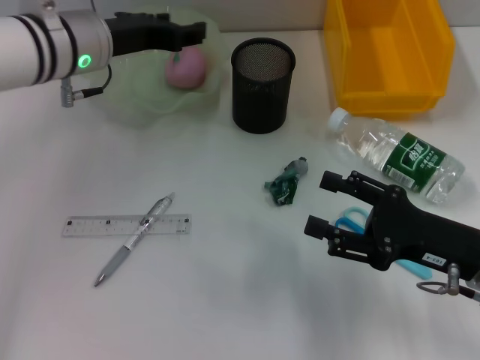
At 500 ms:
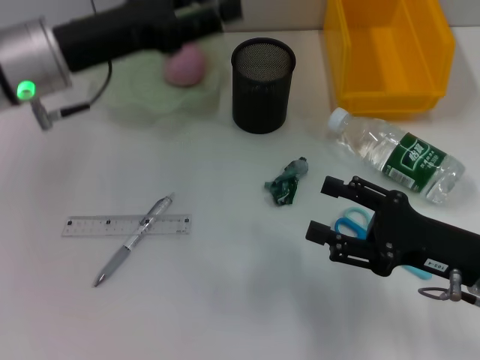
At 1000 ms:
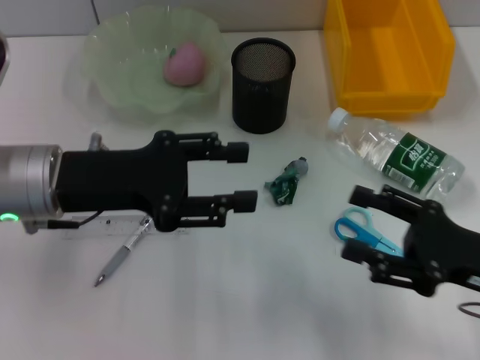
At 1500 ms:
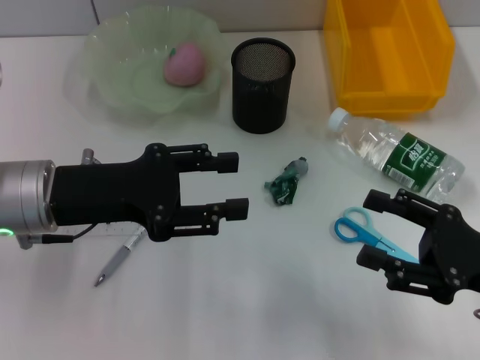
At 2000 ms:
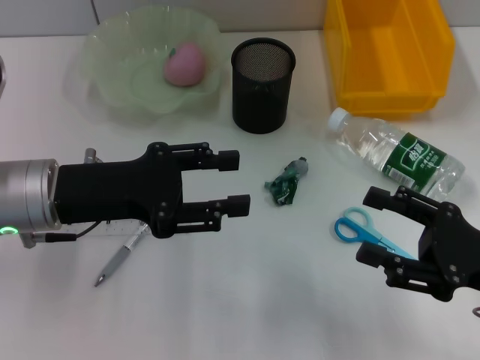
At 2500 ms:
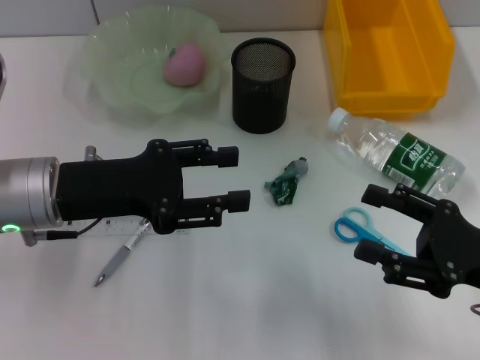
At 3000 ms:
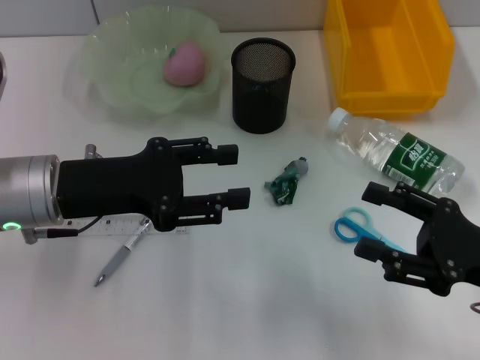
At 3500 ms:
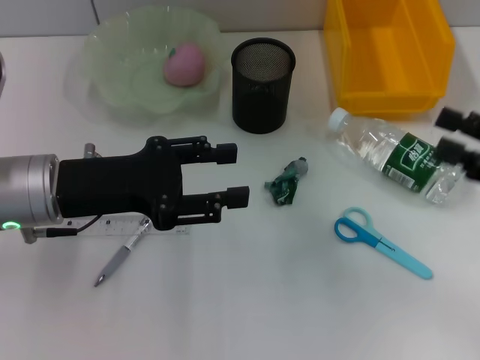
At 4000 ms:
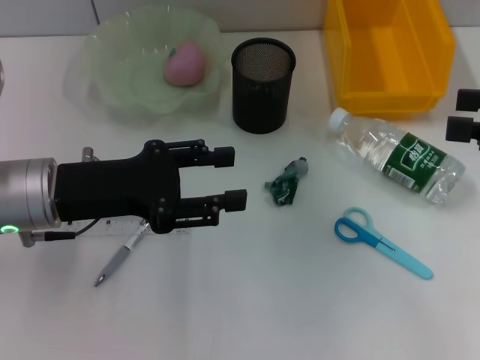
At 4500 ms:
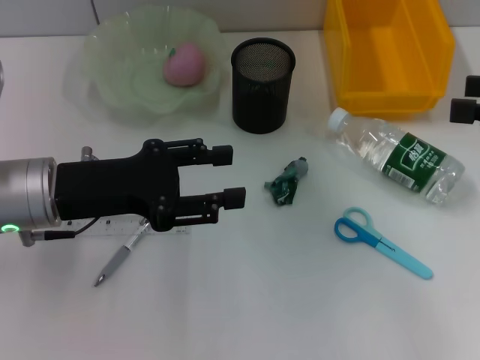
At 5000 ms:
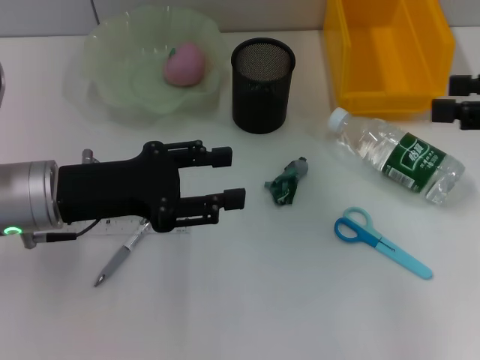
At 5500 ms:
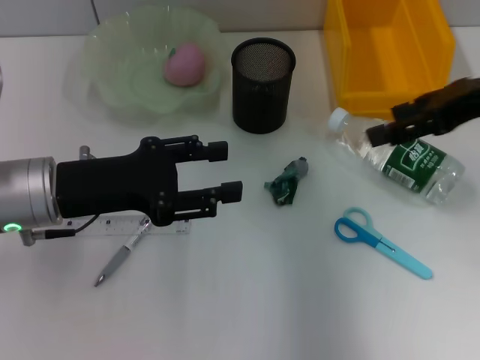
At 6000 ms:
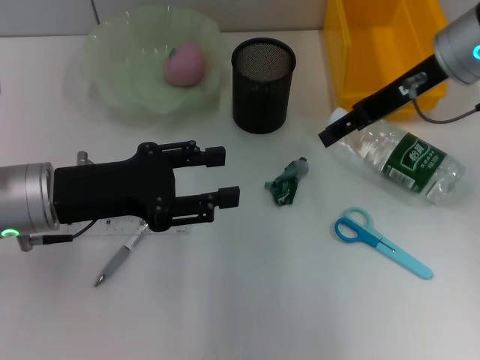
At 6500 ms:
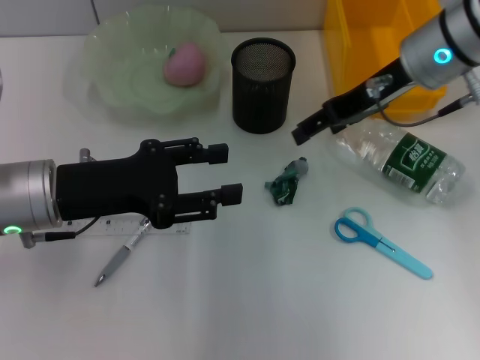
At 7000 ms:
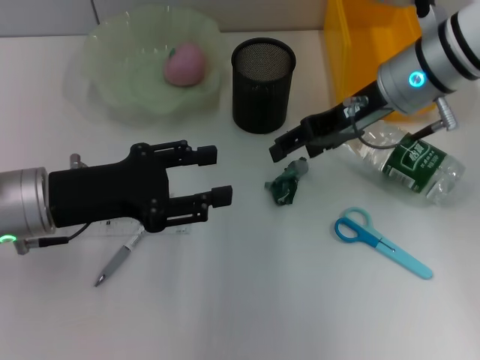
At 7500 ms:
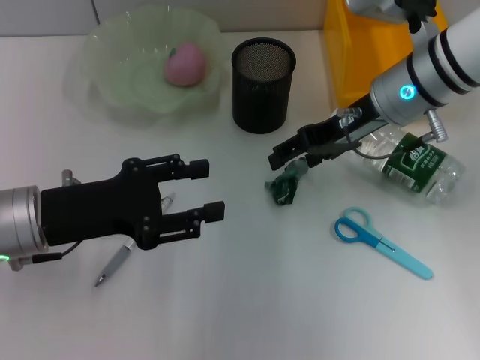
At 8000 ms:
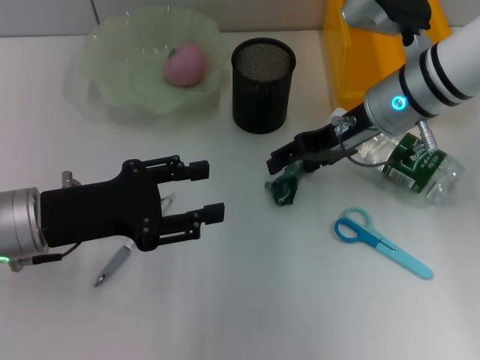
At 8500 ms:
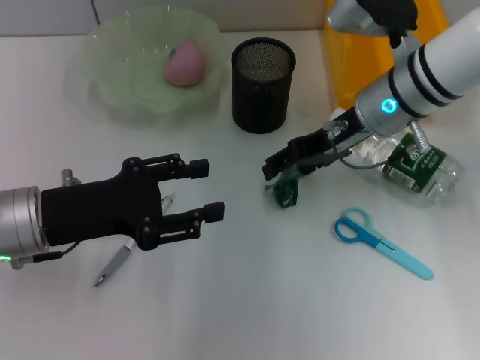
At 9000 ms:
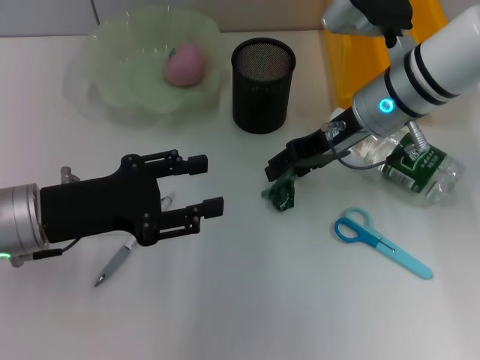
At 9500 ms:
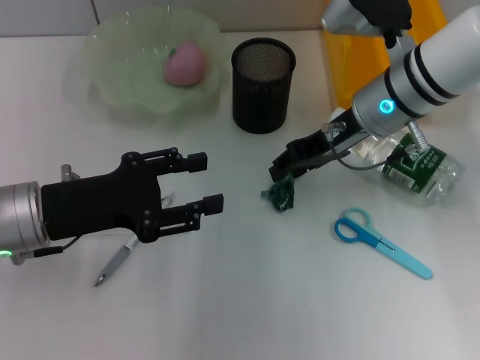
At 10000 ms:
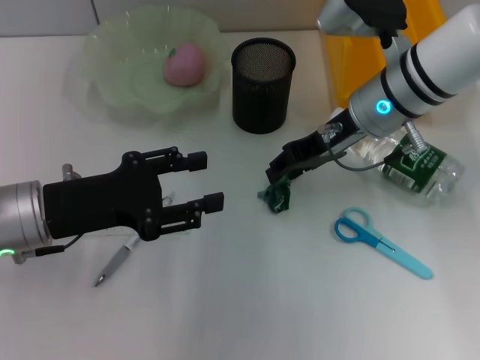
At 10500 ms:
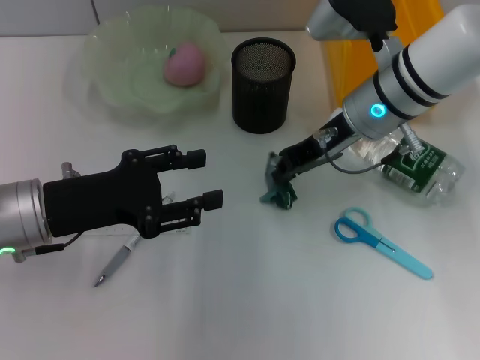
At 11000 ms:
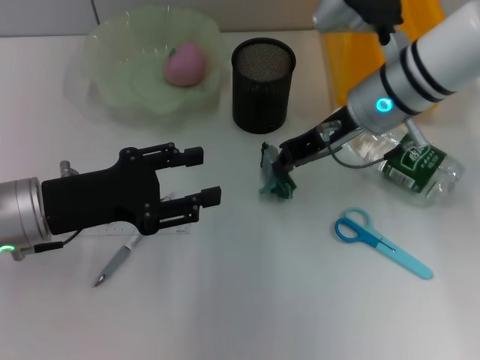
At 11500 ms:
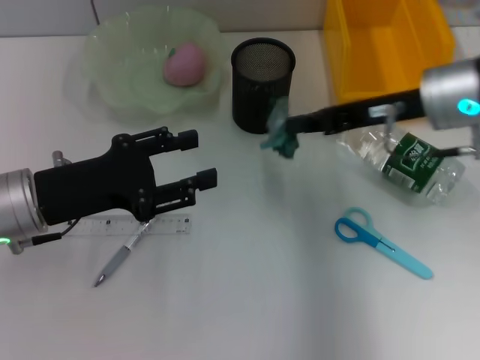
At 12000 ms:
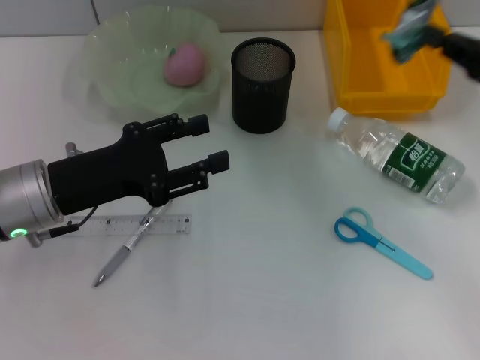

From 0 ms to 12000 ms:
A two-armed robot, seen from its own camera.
Step, from 0 ms to 9500 ms: Grab the plastic with the right hand.
From 0 ms to 2000 ms: The left gripper heads backward, covering about 10 cm.
From 2000 ms to 4000 ms: The right gripper shifts roughly 15 cm upward, forward and to the right.
From 4000 ms to 6000 ms: The right gripper is displaced to the left and forward by roughly 20 cm.
From 6000 ms to 8000 ms: The right gripper shifts approximately 5 cm downward.
From 8000 ms to 10000 ms: The right gripper closes its fingers.
From 10000 ms to 12000 ms: The right gripper goes approximately 20 cm to the right and backward, and closes.

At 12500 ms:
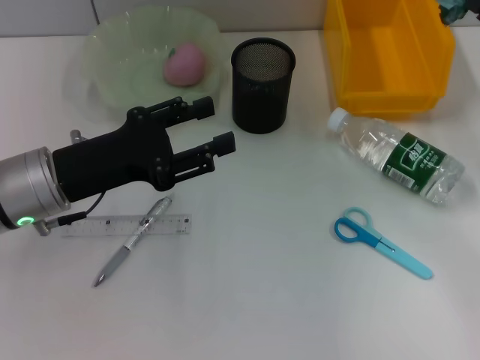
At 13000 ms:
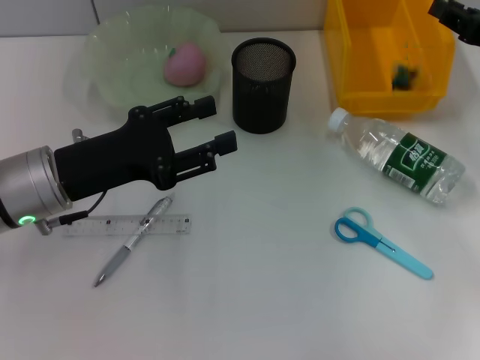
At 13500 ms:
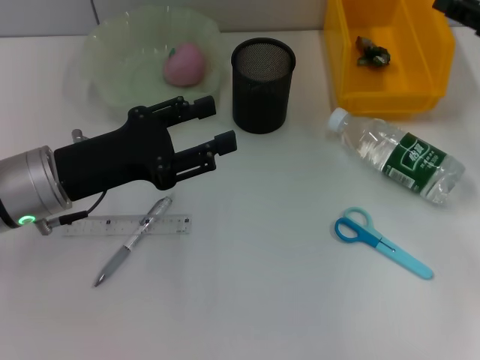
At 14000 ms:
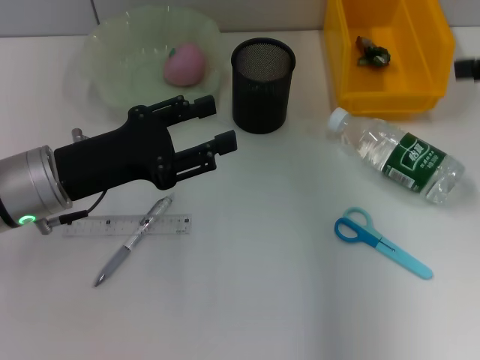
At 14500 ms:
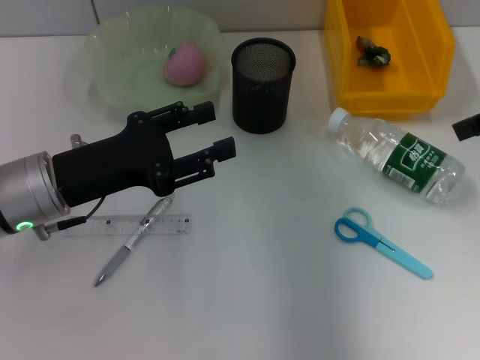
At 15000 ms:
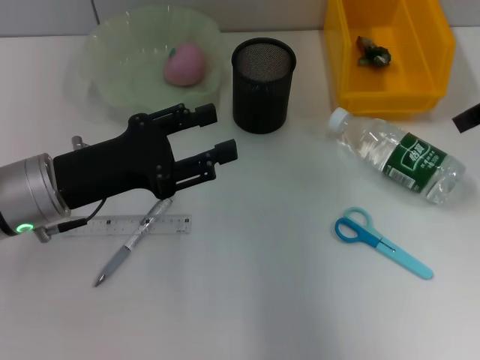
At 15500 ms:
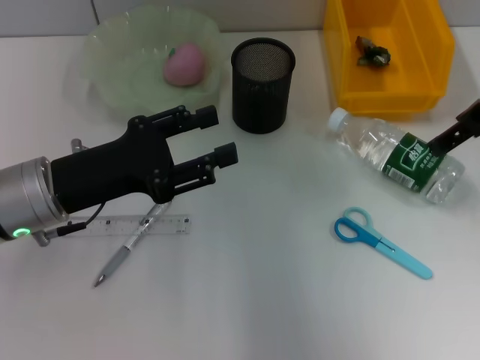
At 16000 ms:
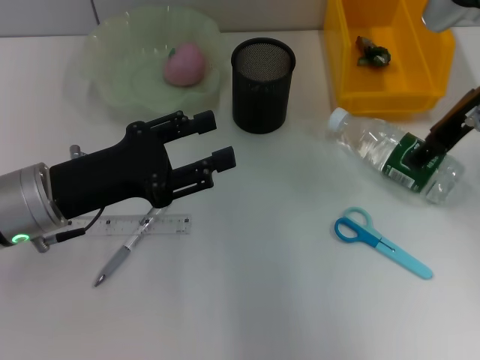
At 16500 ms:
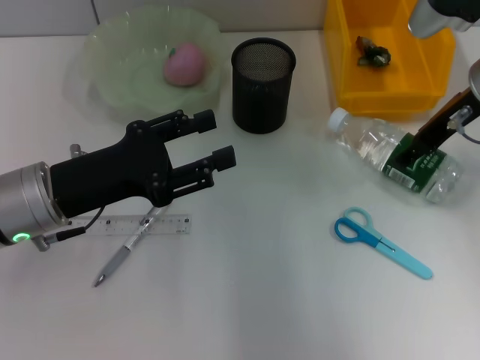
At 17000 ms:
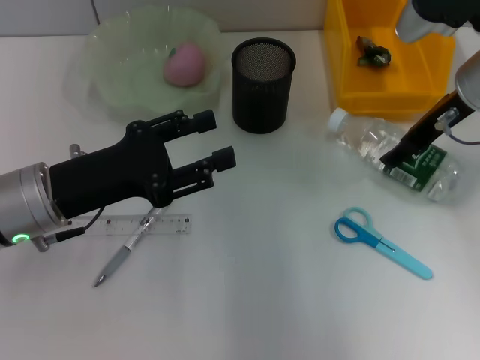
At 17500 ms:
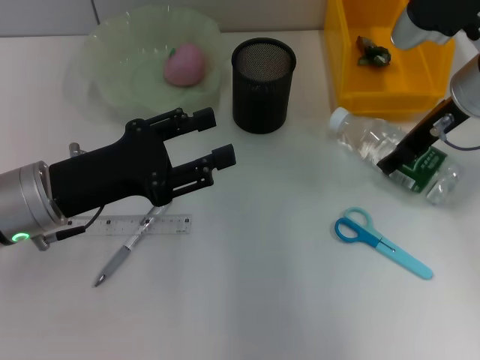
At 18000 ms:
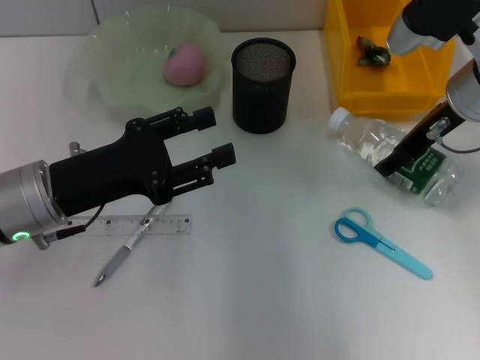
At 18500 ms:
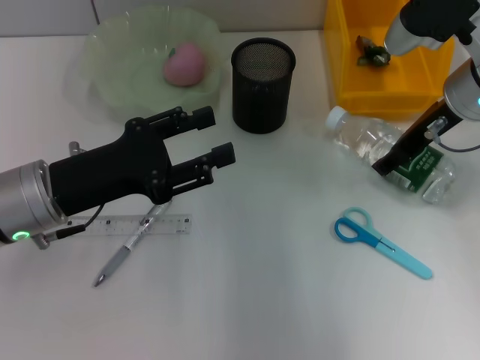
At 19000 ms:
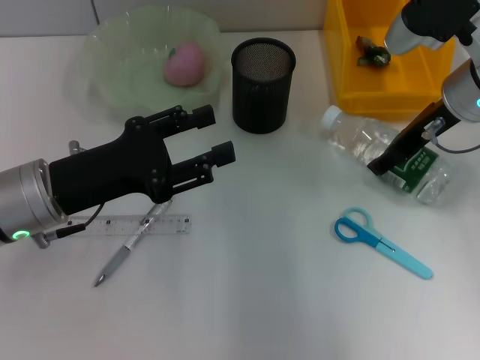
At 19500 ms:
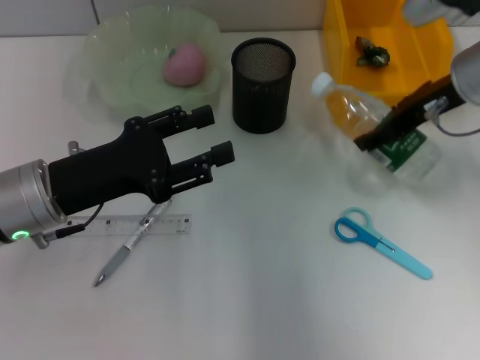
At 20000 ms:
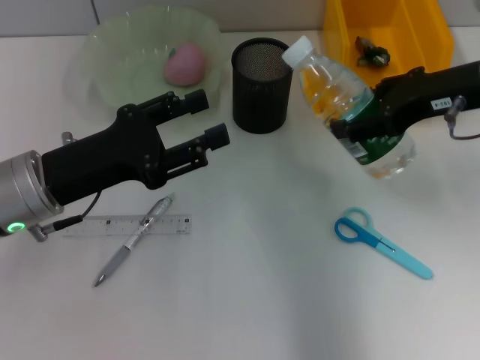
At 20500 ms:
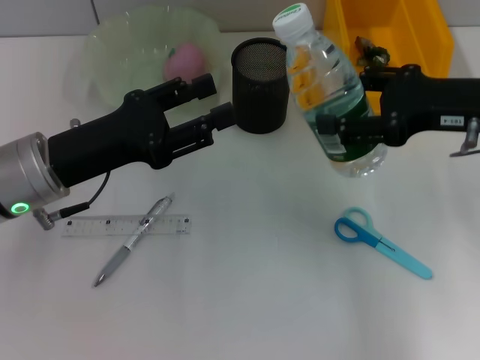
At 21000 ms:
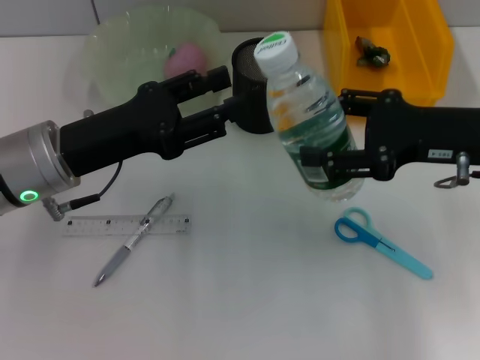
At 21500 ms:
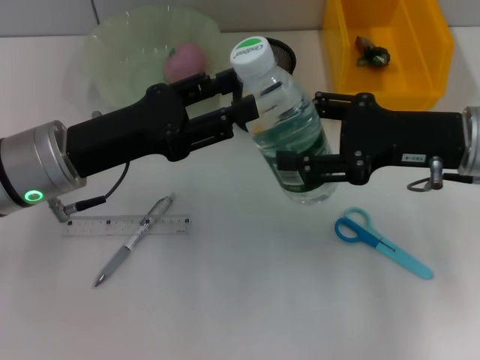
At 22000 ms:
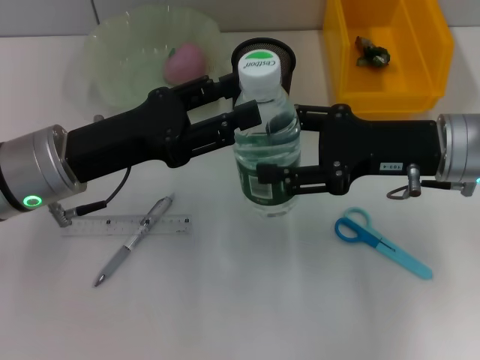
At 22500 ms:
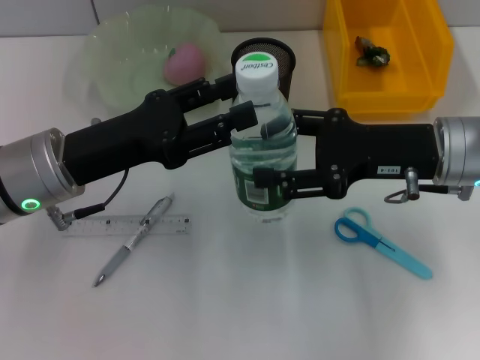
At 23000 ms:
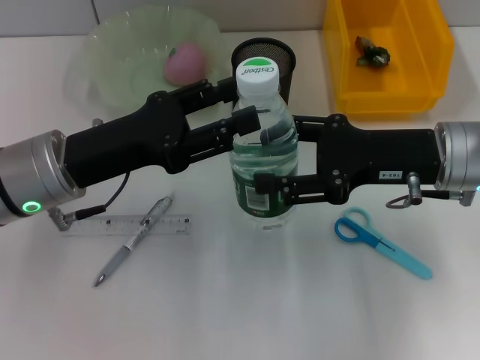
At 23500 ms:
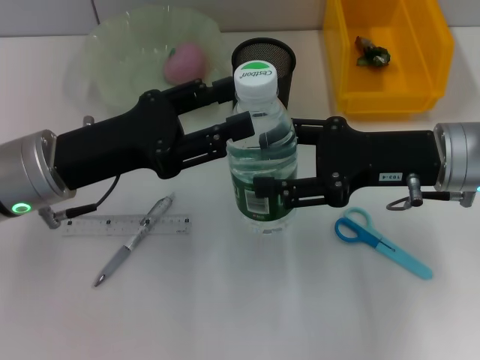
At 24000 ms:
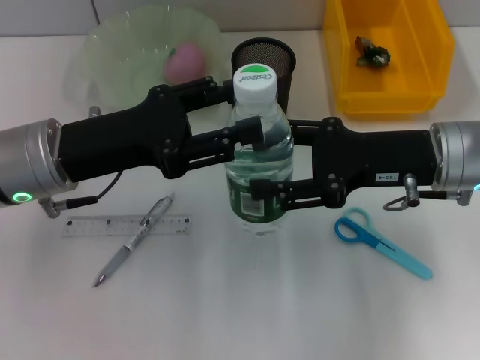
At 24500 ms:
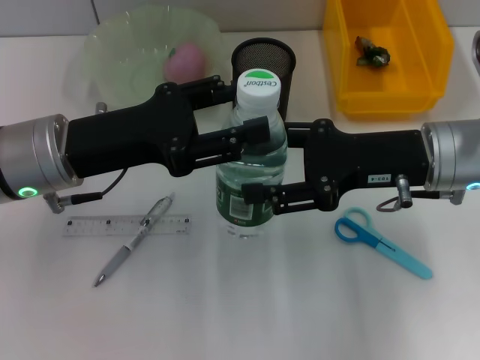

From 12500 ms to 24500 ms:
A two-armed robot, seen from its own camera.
Step, from 14000 ms to 18000 ms: Grab the water bottle with the right hand.
From 12500 ms to 14500 ms: The right gripper heads upward, covering roughly 15 cm, and opens its fingers.
From 14500 ms to 16500 ms: The right gripper moves to the left, downward and forward, approximately 15 cm.
From 16500 ms to 18500 ms: The grippers stay close to where they were, moving slightly.
From 18500 ms to 20500 ms: The right gripper travels backward by approximately 10 cm.
From 20500 ms to 22500 ms: The right gripper ends up some 5 cm from where it was.
From 22500 ms to 24500 ms: The grippers move only a little.

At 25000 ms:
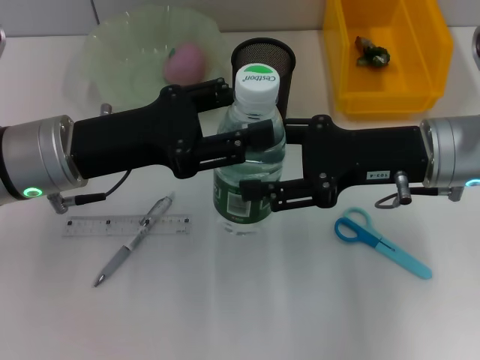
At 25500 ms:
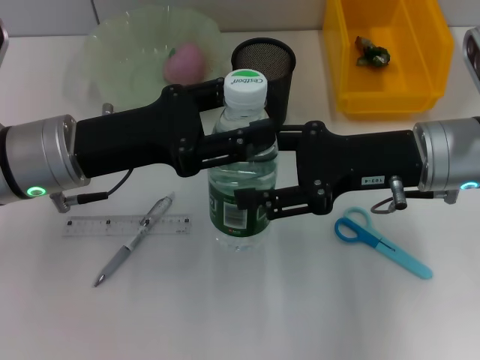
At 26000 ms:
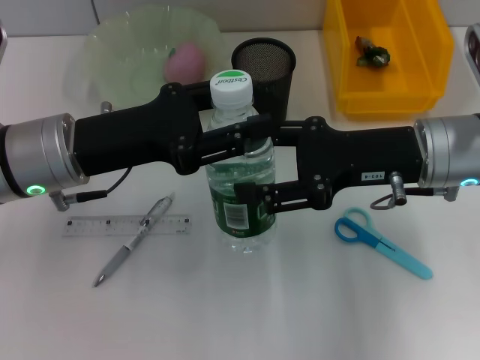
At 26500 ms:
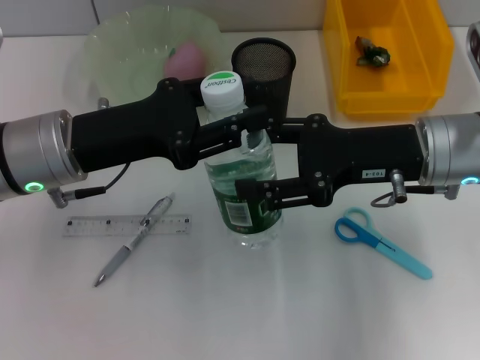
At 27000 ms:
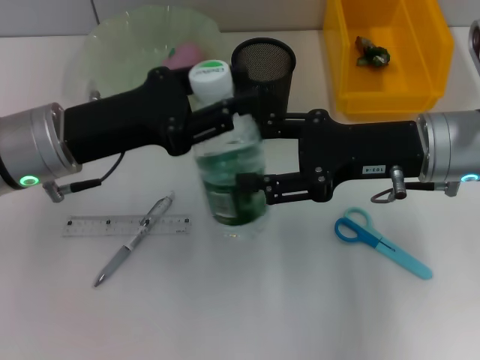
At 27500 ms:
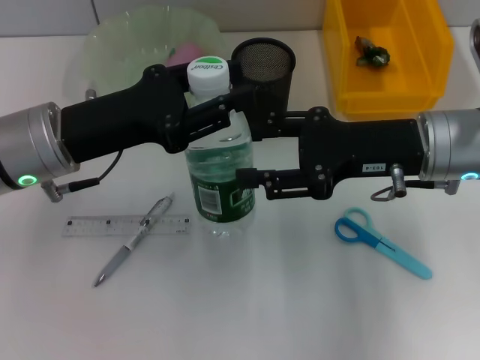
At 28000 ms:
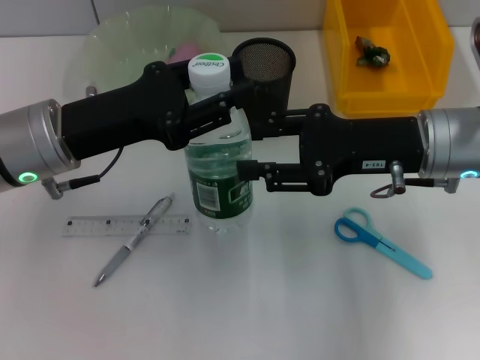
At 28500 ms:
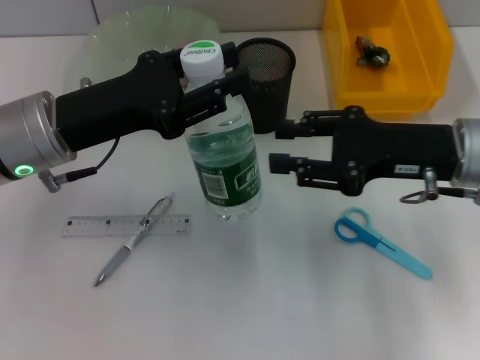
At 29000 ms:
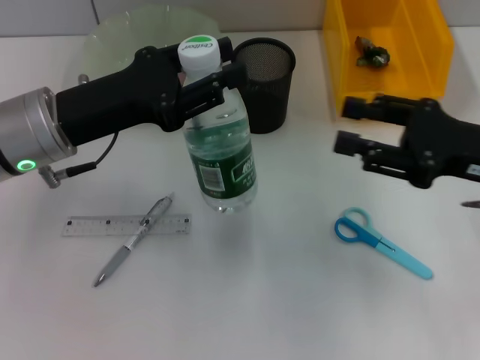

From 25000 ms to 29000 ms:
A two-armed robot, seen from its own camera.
Step, from 25000 ms to 27500 ms: Pass the water bottle from the right hand to the left hand.
From 25000 ms to 27000 ms: Both grippers stay put.
From 27000 ms to 29000 ms: The right gripper heads to the right, covering roughly 10 cm.
